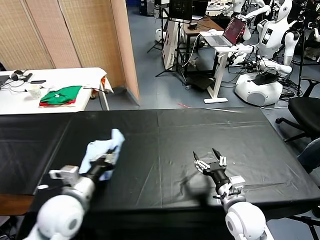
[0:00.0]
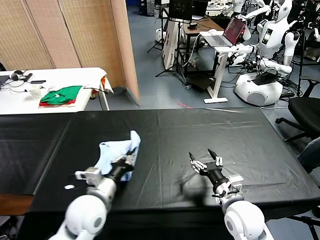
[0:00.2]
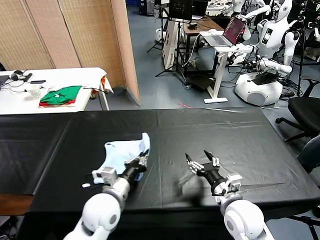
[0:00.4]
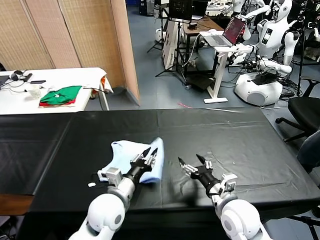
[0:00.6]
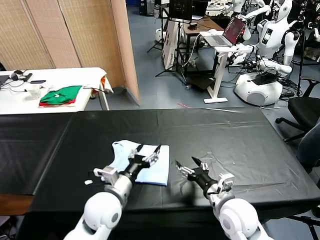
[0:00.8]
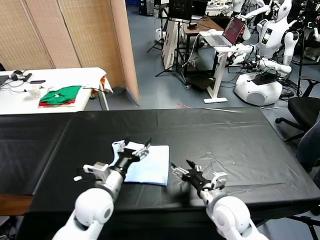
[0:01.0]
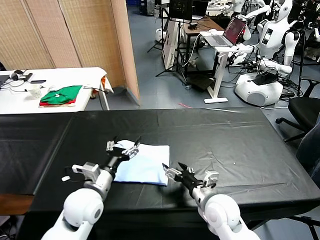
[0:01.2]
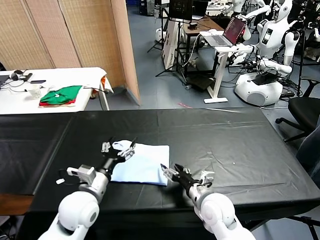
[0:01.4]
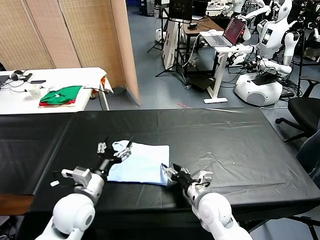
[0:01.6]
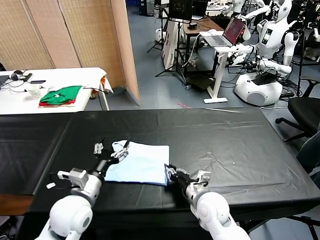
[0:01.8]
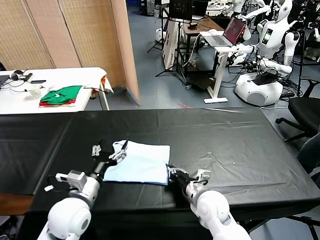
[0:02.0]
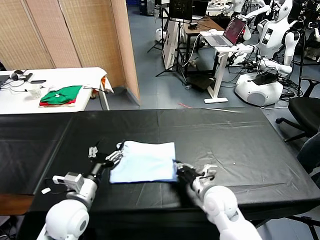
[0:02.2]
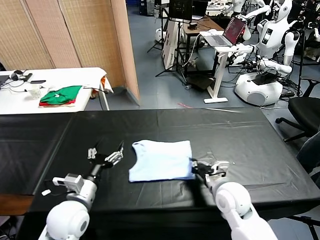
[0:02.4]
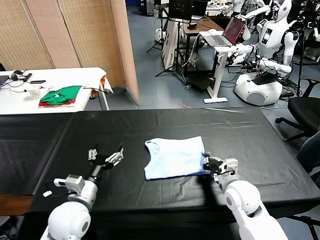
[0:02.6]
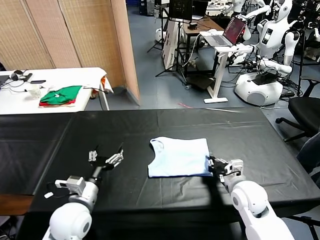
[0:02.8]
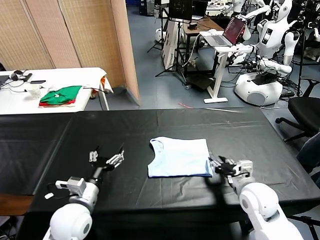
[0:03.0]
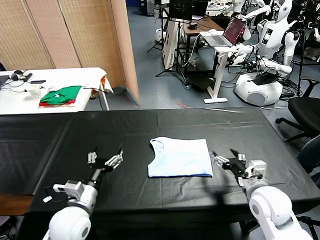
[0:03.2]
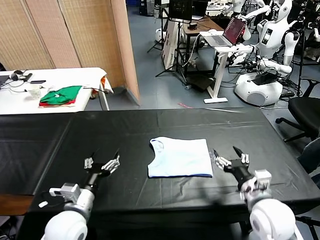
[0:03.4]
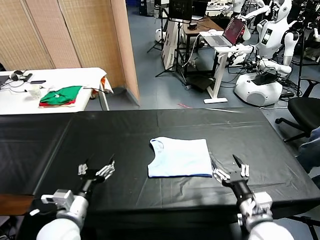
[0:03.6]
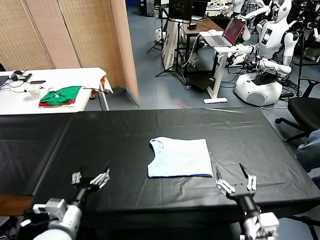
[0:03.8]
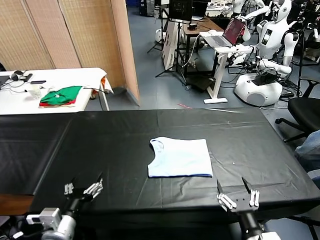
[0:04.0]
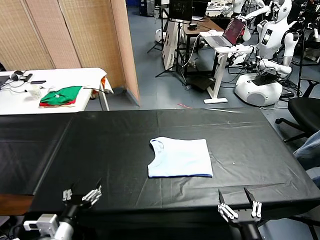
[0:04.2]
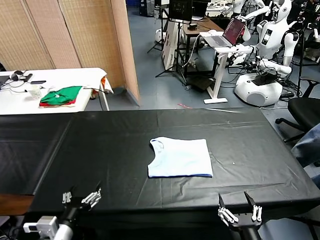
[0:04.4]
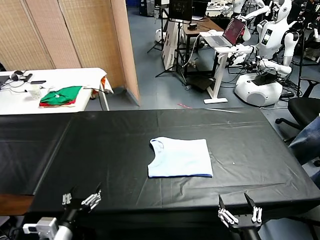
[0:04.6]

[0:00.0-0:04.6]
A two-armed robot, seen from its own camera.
Task of the whole recording: fold and organize the clothes.
Step, 0:00.8 to 0:02.8: Drag the clothes to the center of the table.
0:00.0 to 0:01.6: The left gripper travels to the right and back again, about 10 cm each way, and opens; the right gripper goes about 5 cm to the left.
0:01.6 to 0:03.0: The right gripper heads to the right, covering roughly 10 cm, and closes, then opens again.
0:03.0 to 0:04.6: The right gripper goes some 25 cm backward, and opens its fingers, while the left gripper moves backward, approximately 10 cm.
